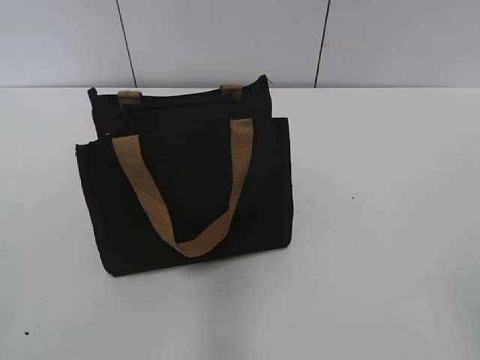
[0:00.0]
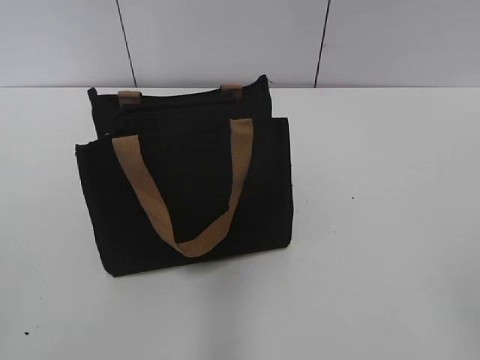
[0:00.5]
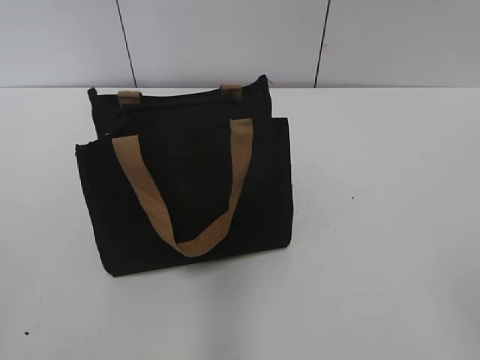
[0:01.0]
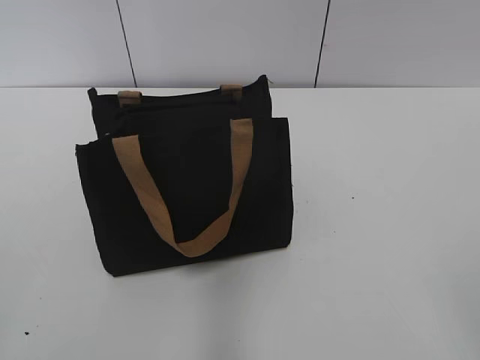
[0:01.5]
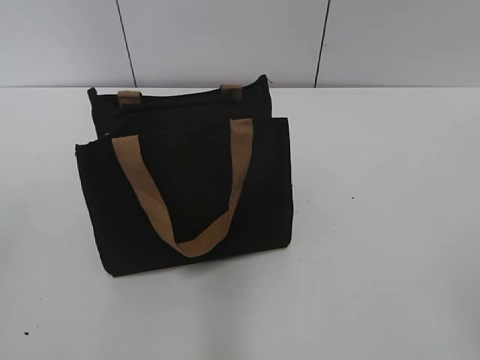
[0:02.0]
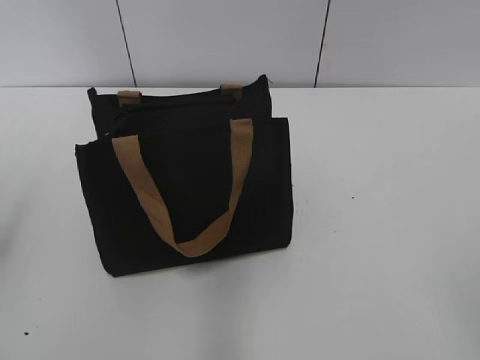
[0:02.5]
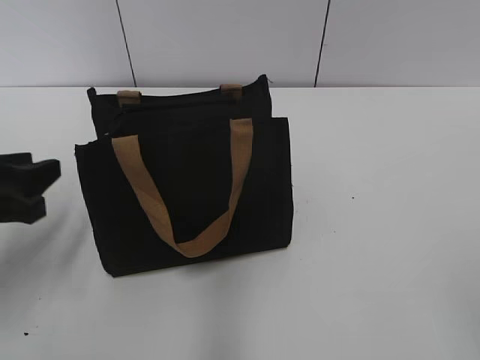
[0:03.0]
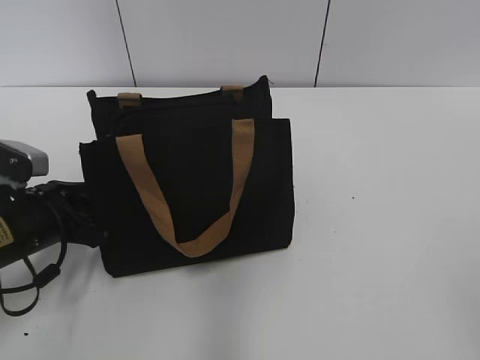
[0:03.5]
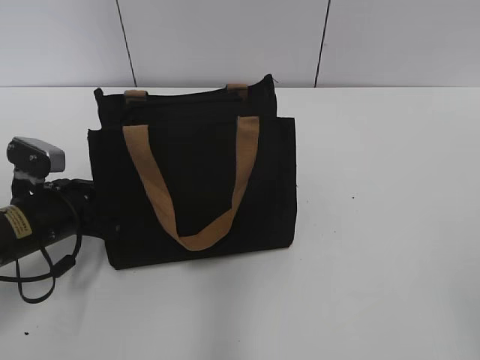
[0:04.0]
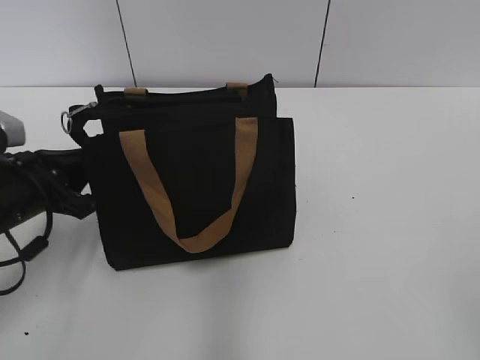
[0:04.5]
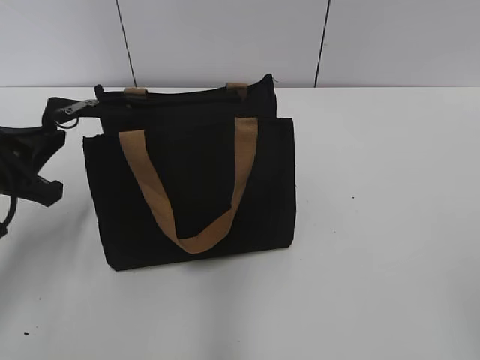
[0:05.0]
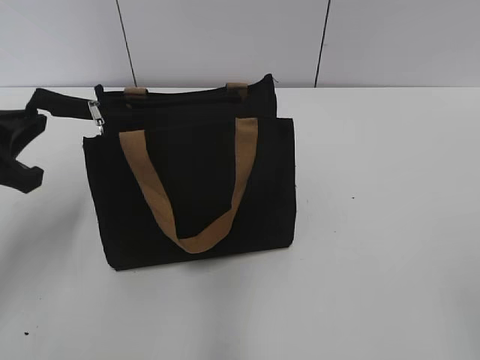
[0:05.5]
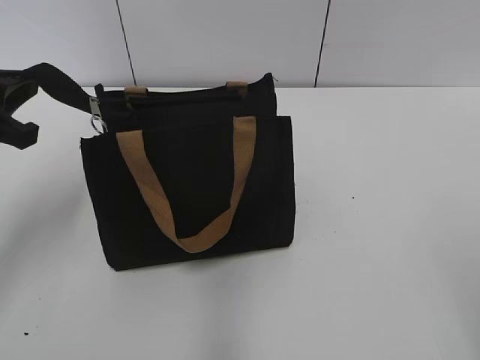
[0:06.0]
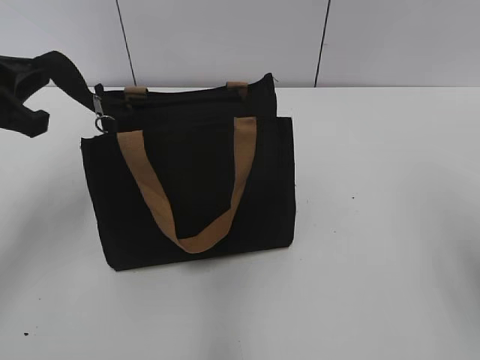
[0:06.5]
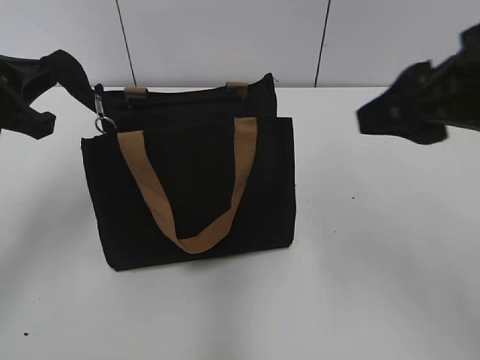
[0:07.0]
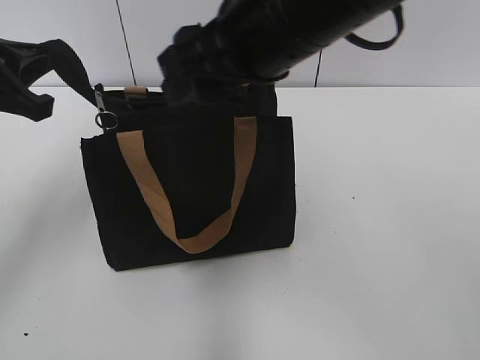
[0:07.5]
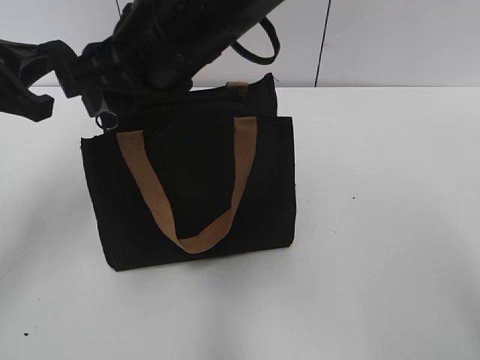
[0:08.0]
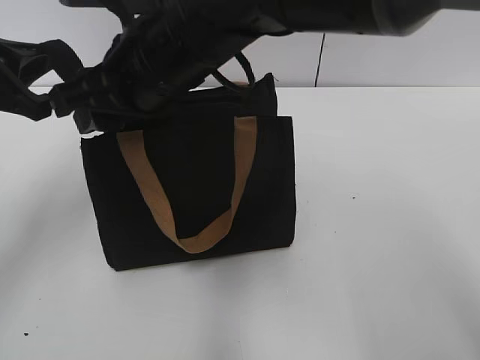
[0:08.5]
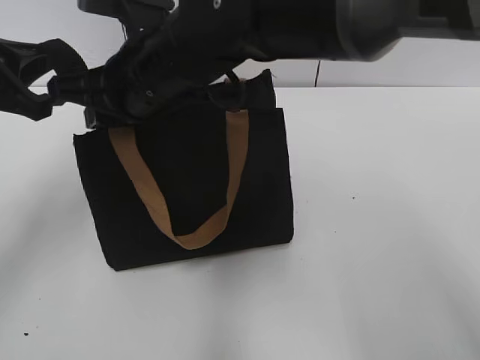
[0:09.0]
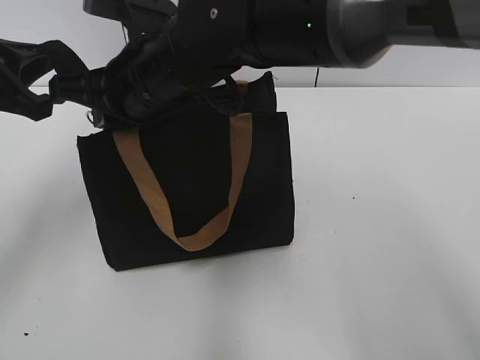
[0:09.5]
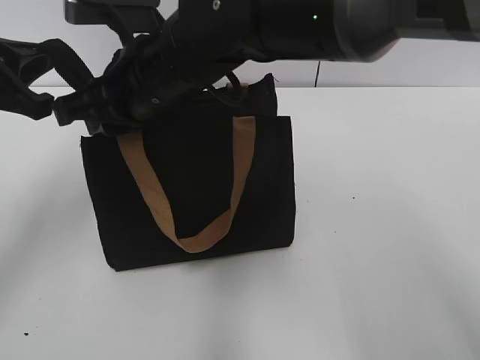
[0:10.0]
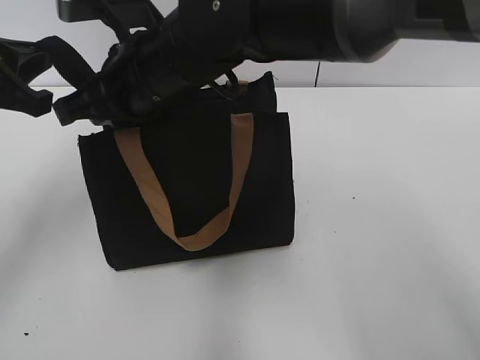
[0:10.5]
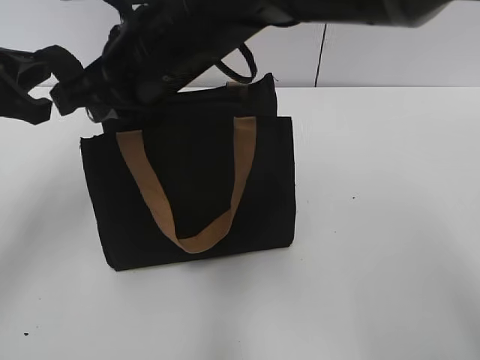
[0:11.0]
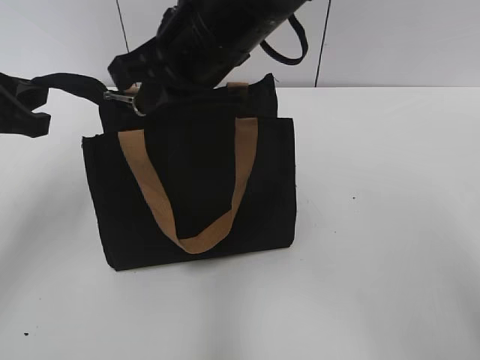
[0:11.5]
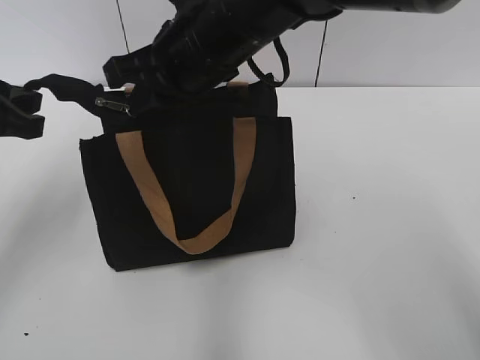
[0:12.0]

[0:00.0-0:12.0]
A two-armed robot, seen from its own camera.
0:02.0 to 0:04.0: The left gripper heads downward and forward, covering approximately 35 cm, and closes its fingers.
0:04.0 to 0:06.0: The left gripper is displaced upward by about 15 cm.
0:06.0 to 0:08.0: The right gripper travels to the left and forward by roughly 40 cm.
0:08.0 to 0:10.0: The right gripper is displaced downward by some 5 cm, and closes, then reopens.
0:10.0 to 0:12.0: The right gripper moves roughly 5 cm, and closes.

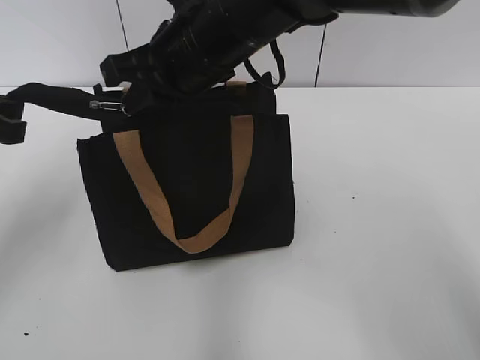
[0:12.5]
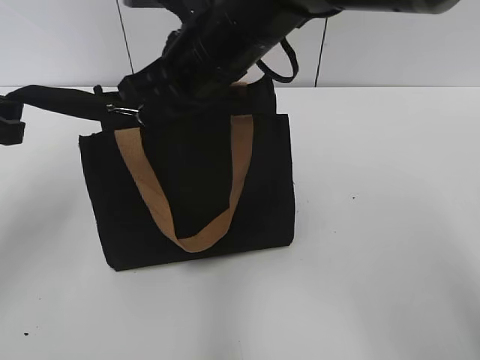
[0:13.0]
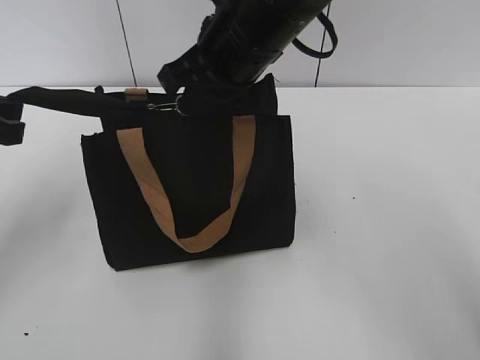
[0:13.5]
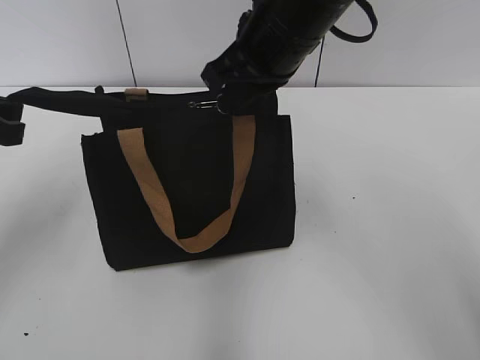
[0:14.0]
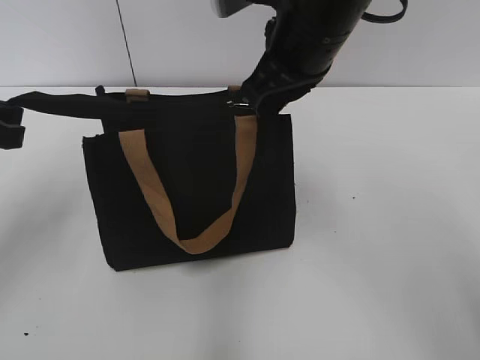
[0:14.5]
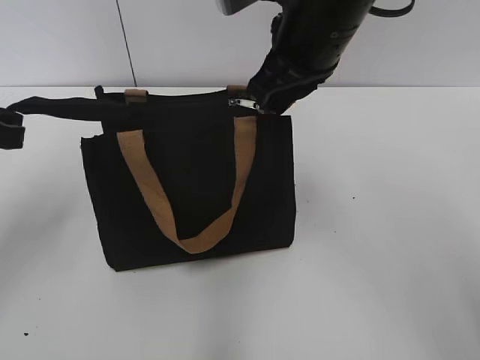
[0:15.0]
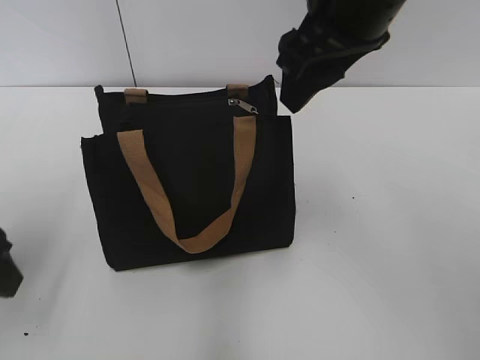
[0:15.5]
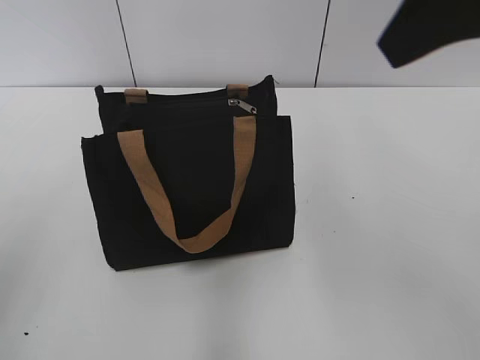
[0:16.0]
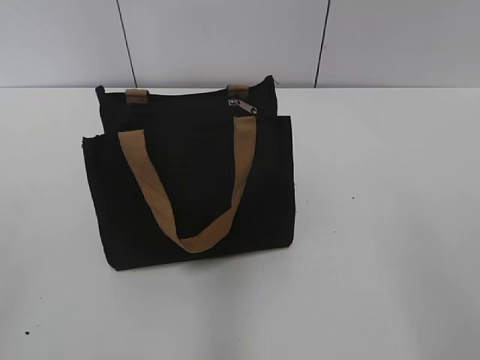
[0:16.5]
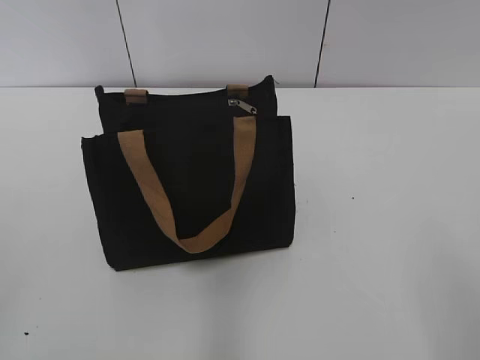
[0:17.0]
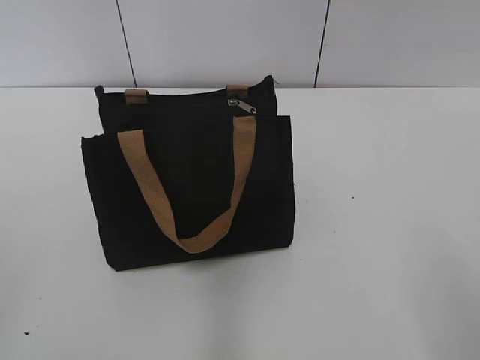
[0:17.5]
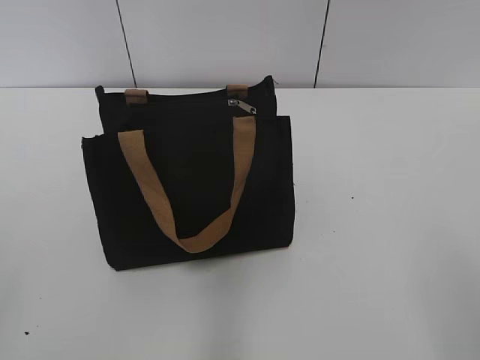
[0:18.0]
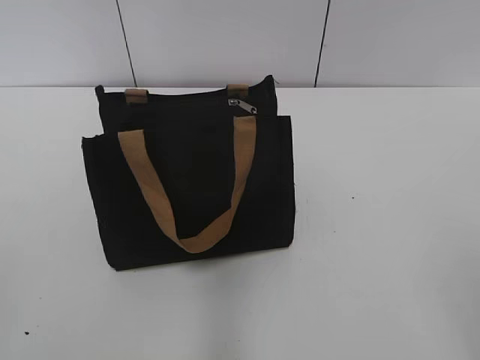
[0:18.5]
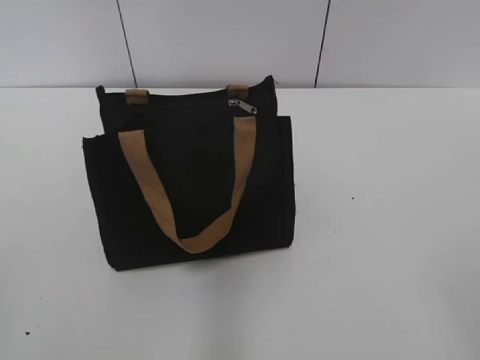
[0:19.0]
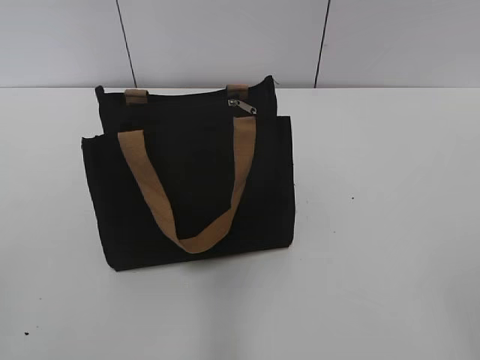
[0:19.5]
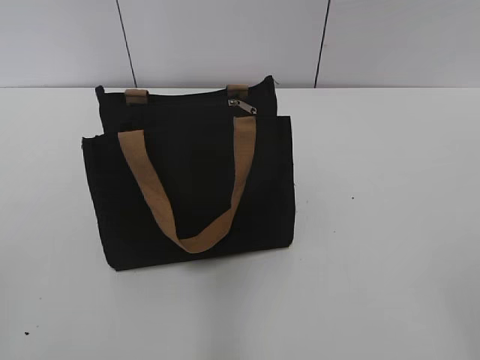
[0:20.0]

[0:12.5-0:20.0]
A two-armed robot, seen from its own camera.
Step, 0:12.5 to 0:15.0: Zip up the bag with your right hand.
0:12.5 to 0:14.5: The right gripper goes some 10 cm to the right.
0:14.5 to 0:16.5: The right gripper travels backward and to the right by some 35 cm, and opens. The left gripper travels backward by roughly 25 cm, and opens its fingers.
